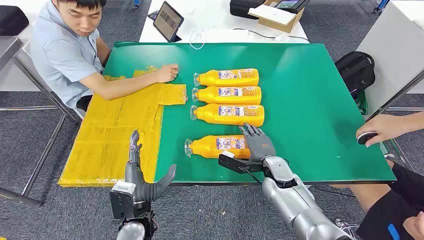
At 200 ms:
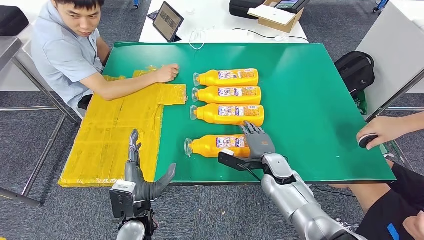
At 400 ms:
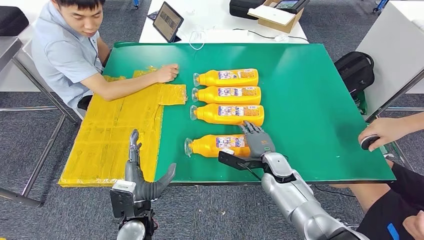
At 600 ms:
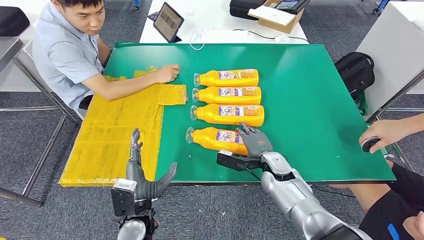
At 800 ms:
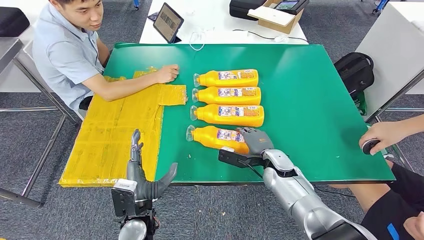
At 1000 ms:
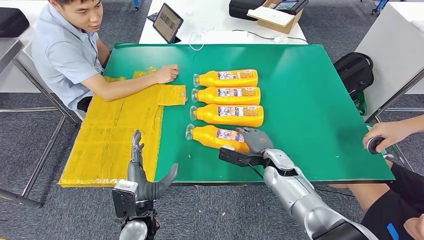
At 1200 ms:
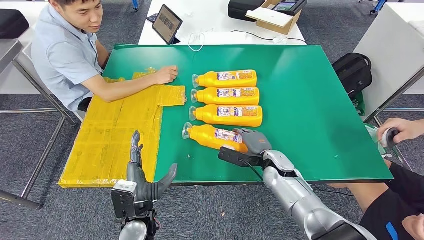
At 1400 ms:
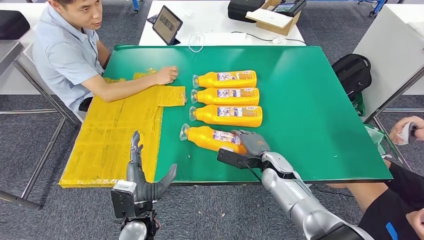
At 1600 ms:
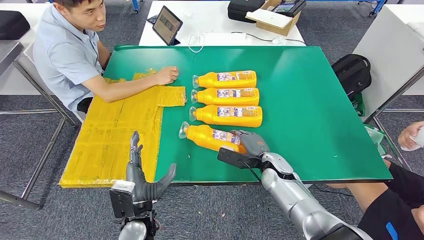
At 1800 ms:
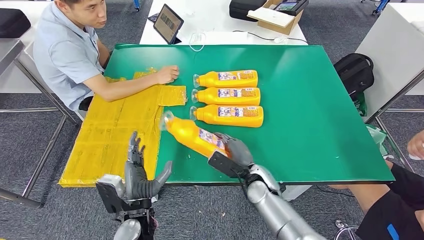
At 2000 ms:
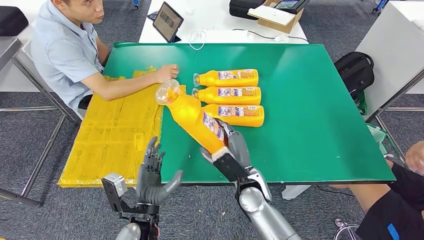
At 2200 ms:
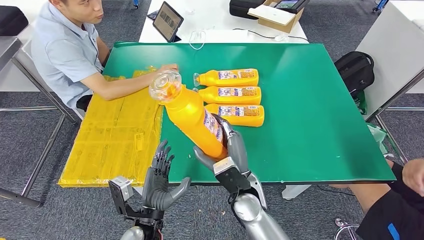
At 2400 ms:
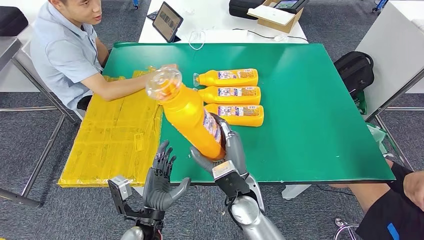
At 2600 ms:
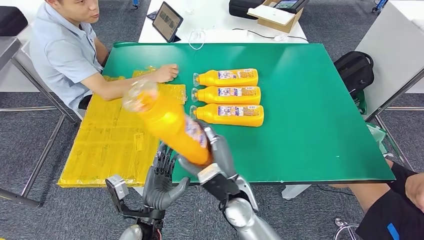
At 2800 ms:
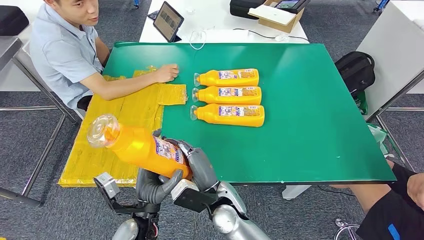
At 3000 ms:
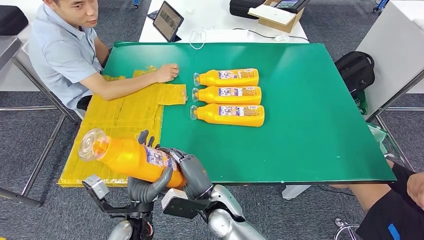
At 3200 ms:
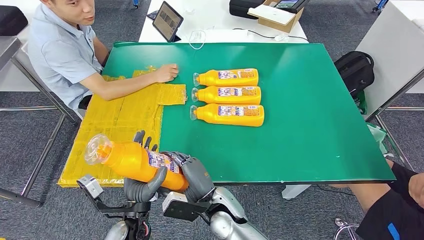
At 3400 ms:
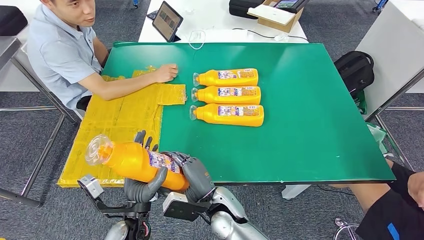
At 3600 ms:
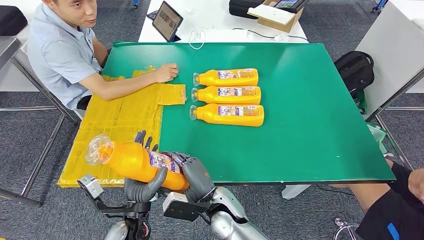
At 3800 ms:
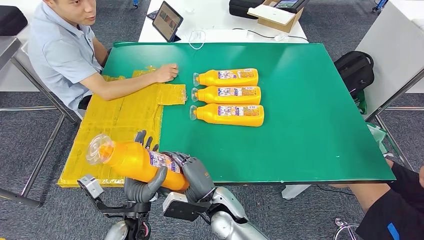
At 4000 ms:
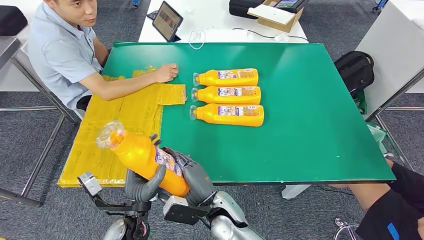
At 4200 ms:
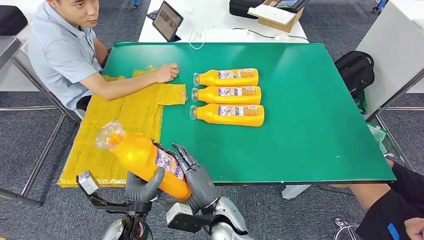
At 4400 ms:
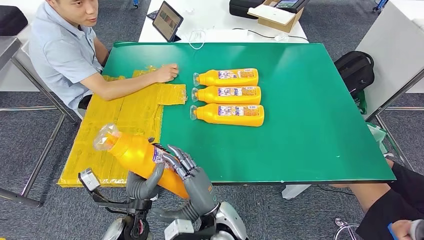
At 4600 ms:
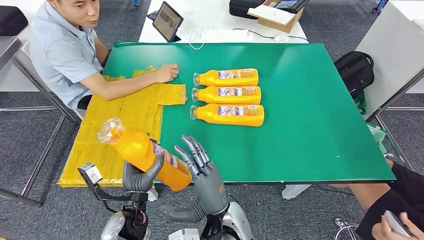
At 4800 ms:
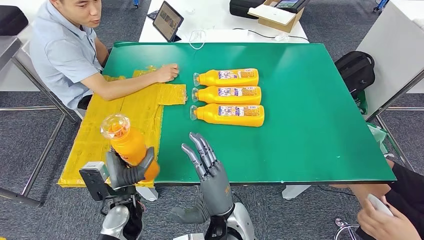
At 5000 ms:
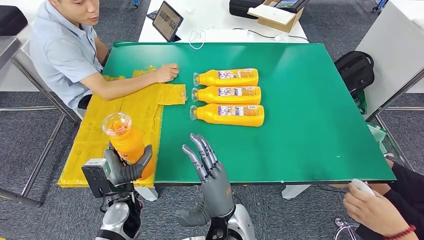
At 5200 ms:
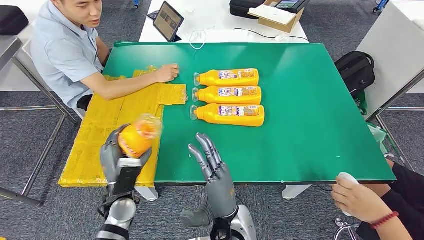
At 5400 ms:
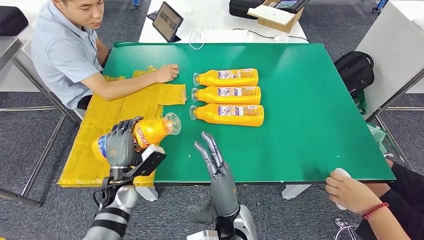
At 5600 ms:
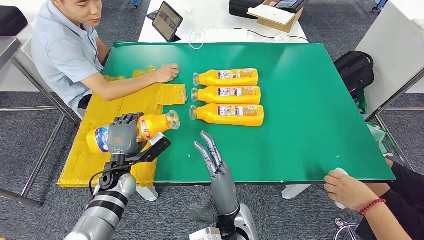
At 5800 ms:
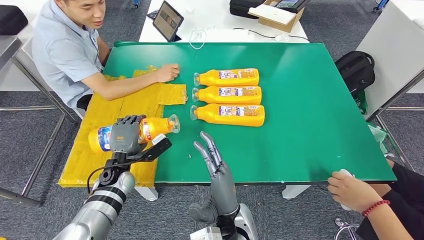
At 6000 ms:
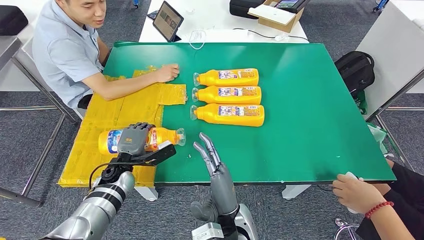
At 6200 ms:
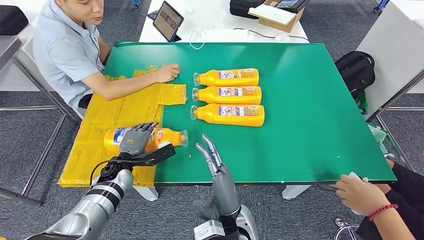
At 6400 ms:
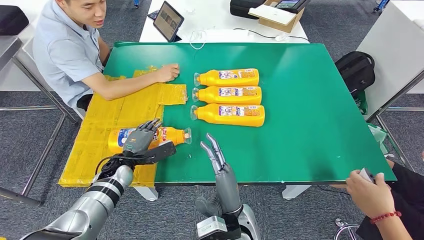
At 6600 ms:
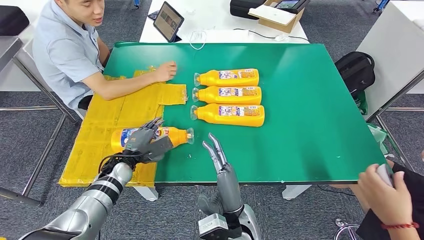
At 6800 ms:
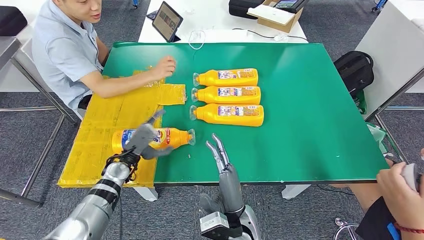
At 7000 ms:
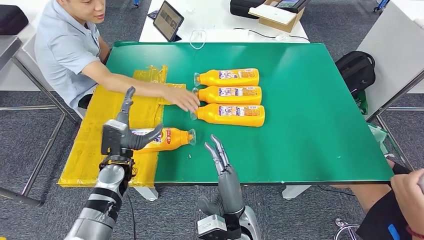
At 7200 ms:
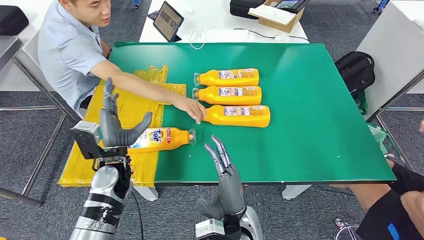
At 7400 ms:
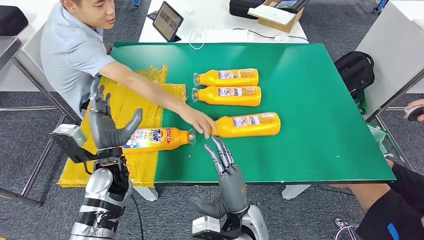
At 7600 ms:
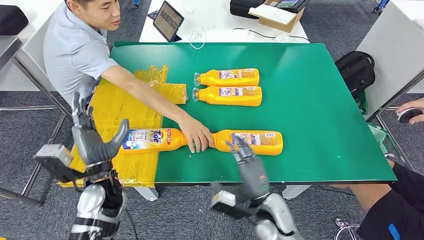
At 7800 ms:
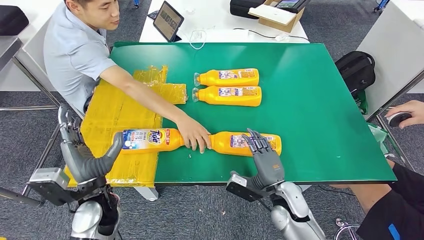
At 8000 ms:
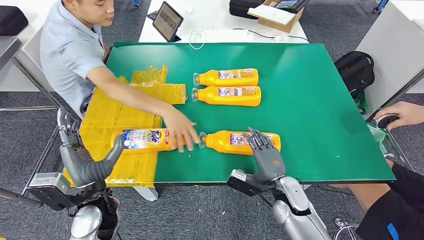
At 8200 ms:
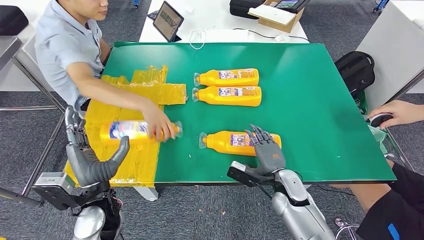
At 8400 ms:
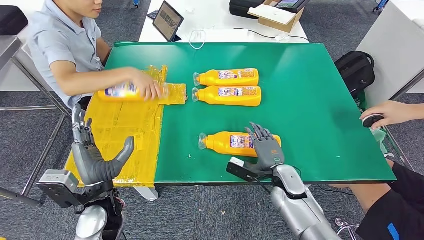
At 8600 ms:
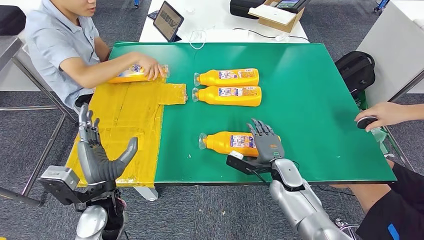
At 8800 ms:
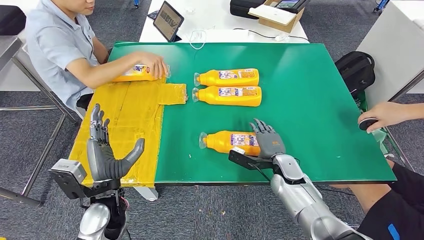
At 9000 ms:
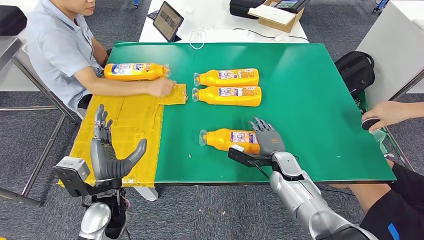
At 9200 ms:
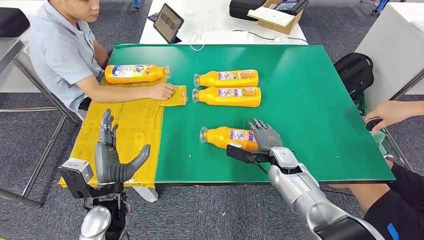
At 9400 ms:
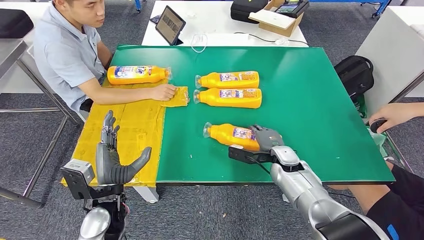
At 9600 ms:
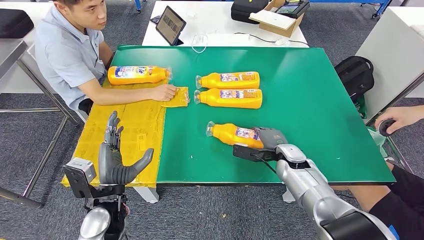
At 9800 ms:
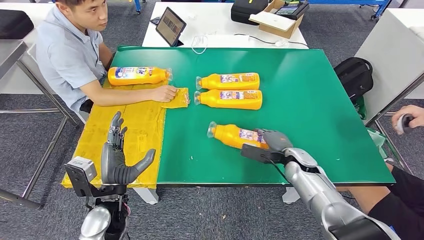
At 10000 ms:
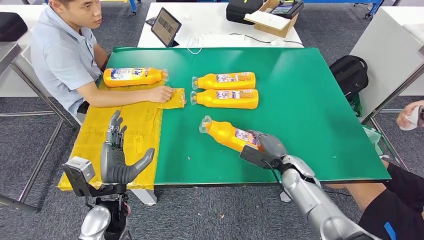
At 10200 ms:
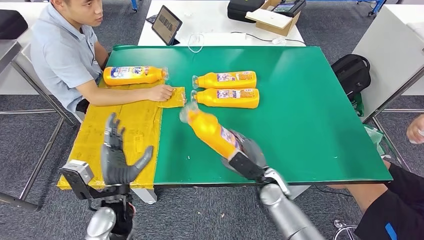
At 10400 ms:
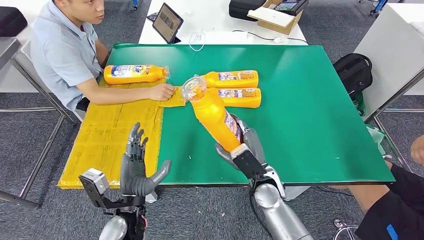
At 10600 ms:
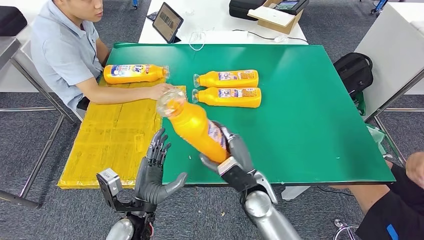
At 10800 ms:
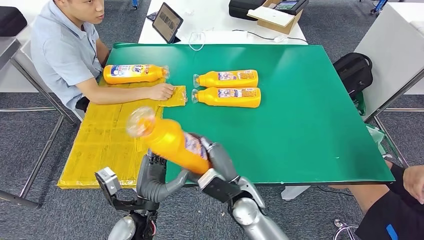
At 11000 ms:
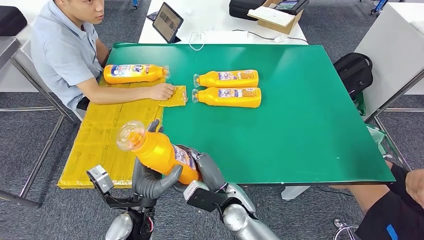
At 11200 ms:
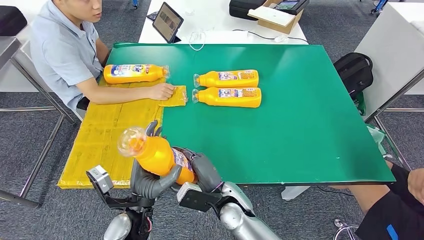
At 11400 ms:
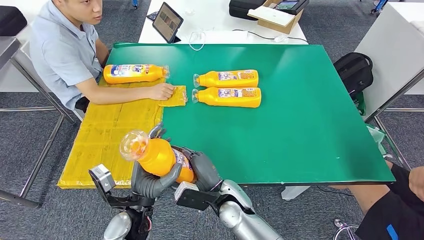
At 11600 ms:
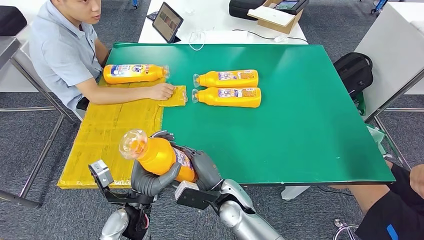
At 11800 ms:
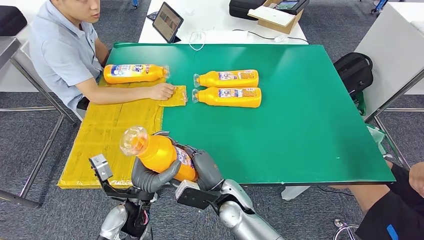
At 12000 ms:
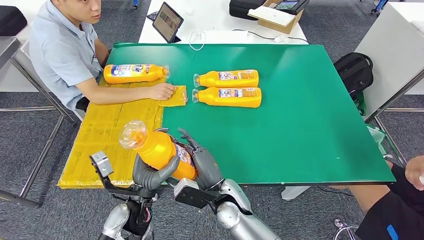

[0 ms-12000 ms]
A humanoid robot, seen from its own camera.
Step, 0 ms to 1800 ms: Take the fast-moving consumer goods bottle from the table.
Step, 2200 ms to 6400 ms: Flip the fast-moving consumer goods bottle to the front side.
Step, 8800 ms to 11800 ms: Pick up the fast-moving consumer goods bottle from the table.
4400 ms to 6000 ms: The left hand is displaced forward and to the left by about 15 cm.
10400 ms to 12000 ms: The right hand is displaced to the left by approximately 10 cm.

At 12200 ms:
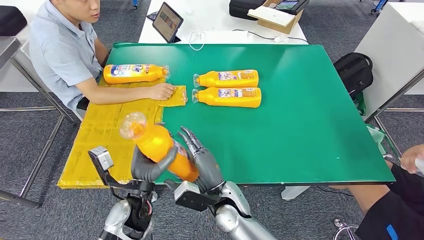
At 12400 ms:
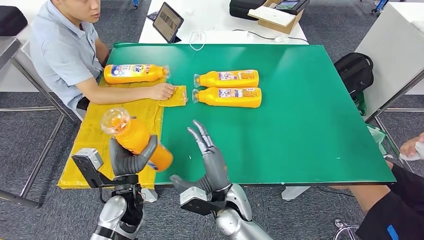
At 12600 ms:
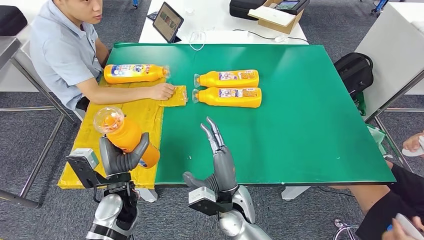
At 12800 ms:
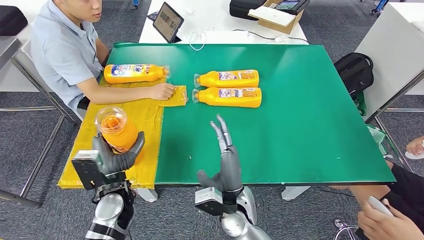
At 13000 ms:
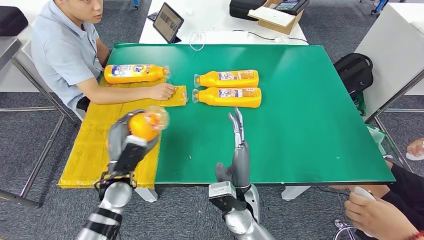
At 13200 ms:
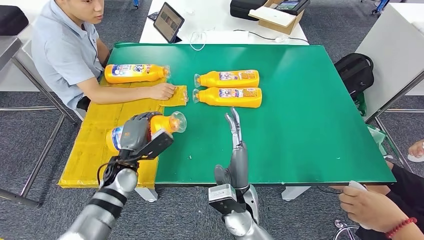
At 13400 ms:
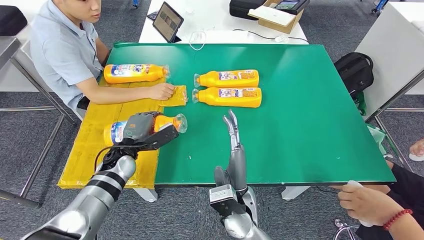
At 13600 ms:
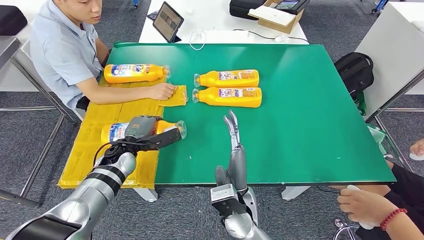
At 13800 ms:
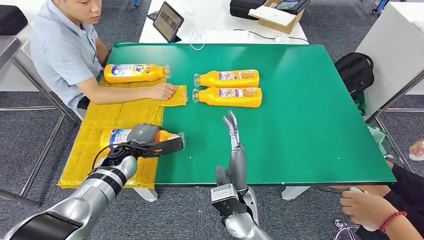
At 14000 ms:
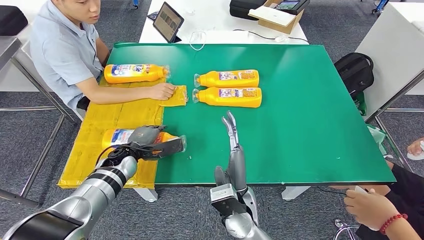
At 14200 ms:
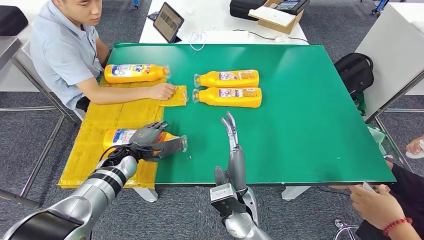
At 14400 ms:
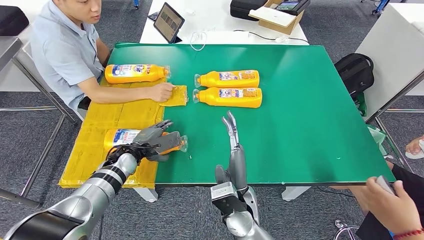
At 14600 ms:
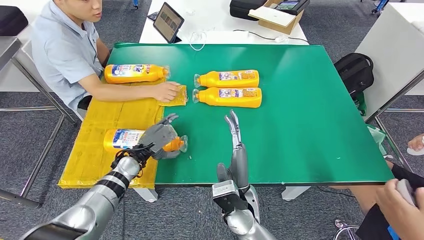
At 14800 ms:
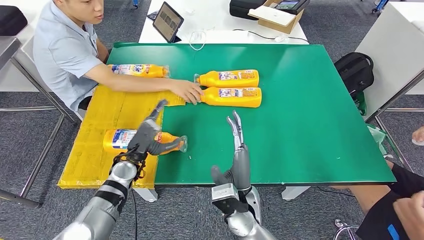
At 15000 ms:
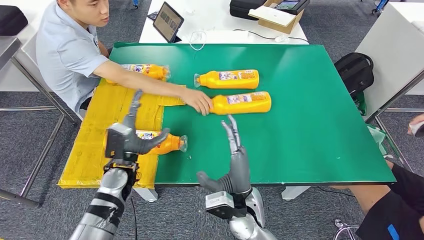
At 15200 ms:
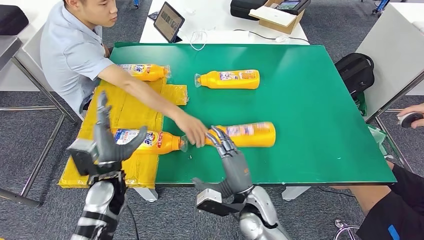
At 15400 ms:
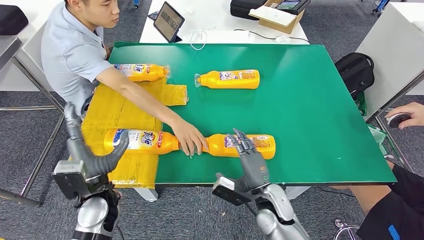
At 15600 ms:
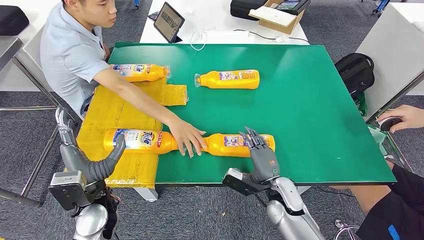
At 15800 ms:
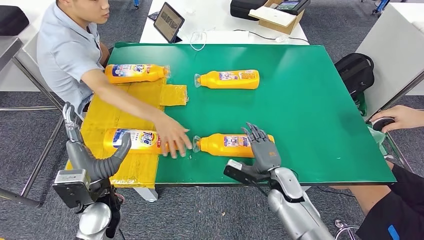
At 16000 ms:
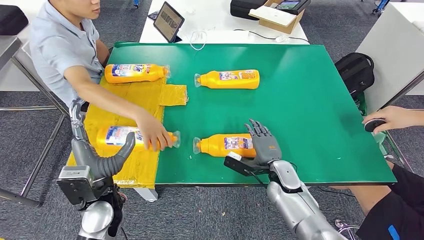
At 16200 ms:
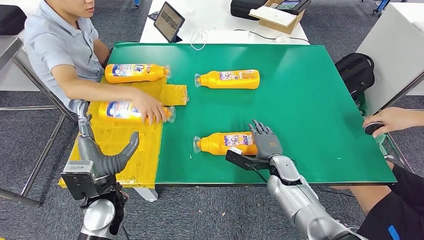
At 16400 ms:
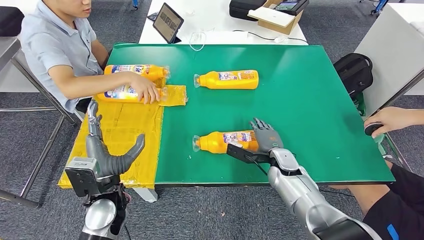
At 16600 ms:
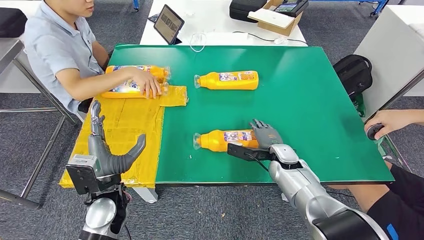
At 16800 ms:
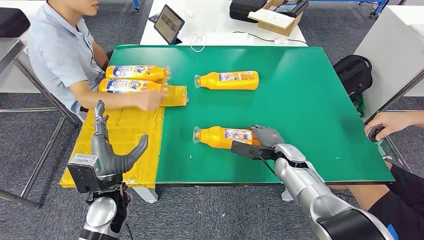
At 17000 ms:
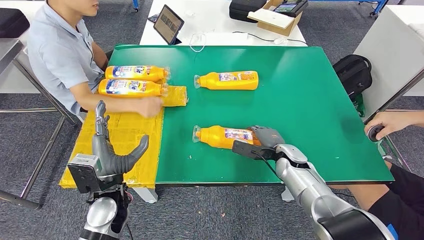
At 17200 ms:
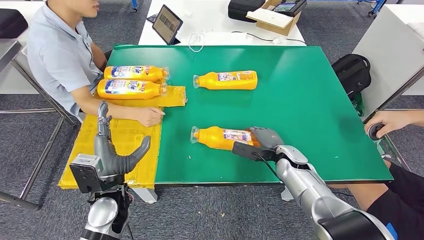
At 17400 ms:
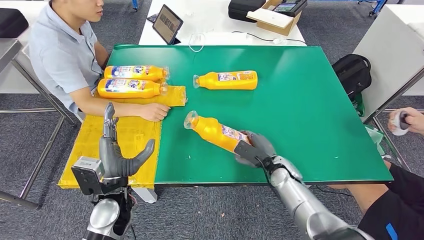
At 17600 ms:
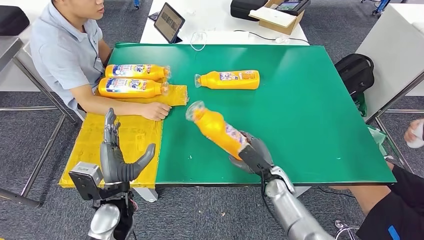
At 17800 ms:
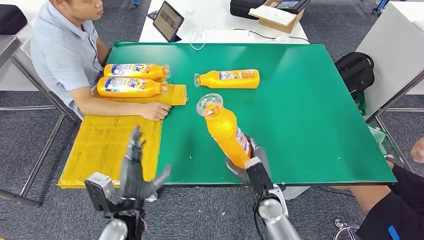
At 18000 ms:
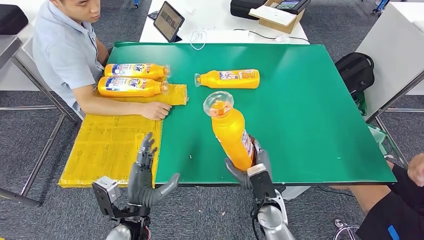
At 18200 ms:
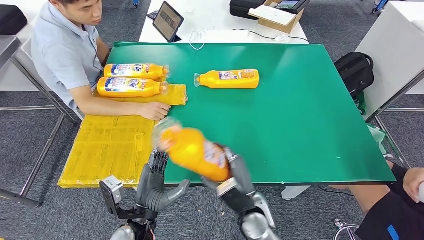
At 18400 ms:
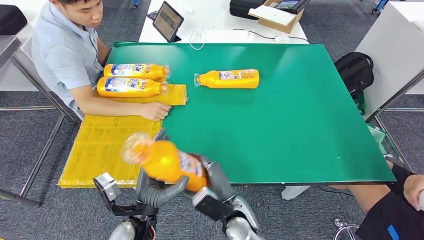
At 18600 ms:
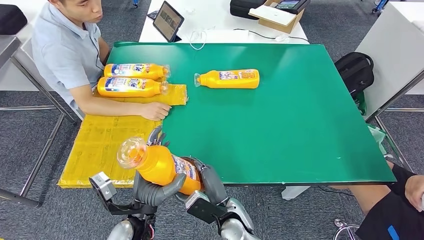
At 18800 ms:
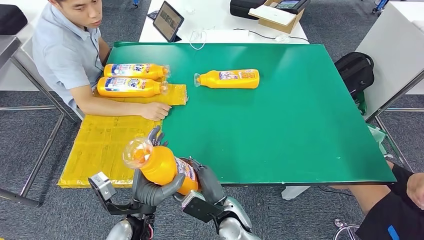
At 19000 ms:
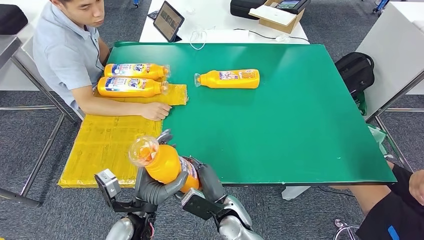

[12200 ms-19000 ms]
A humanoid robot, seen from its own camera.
Step, 12200 ms to 16800 ms: Flip the fast-moving consumer goods bottle to the front side.
12200 ms to 13600 ms: The left hand heads forward and to the left, covering approximately 15 cm.
13600 ms to 15000 ms: The left hand travels backward by approximately 5 cm.
